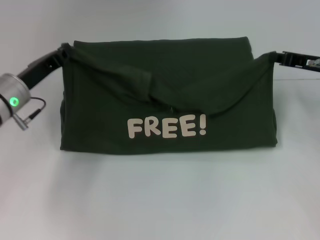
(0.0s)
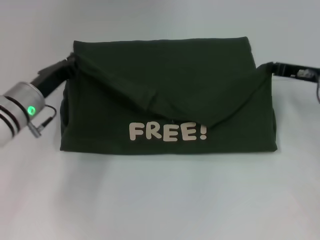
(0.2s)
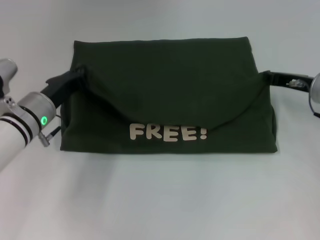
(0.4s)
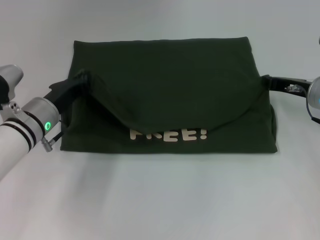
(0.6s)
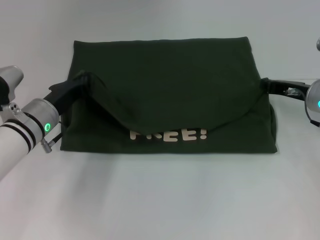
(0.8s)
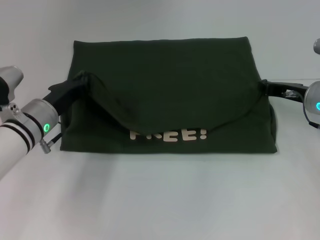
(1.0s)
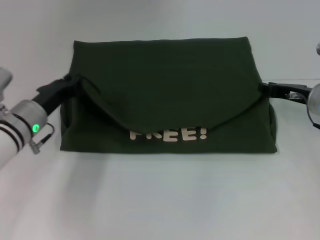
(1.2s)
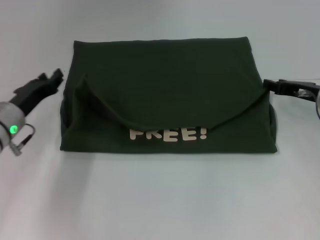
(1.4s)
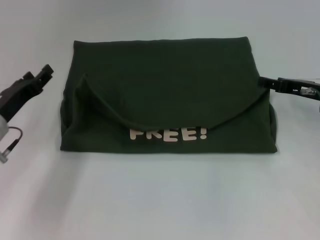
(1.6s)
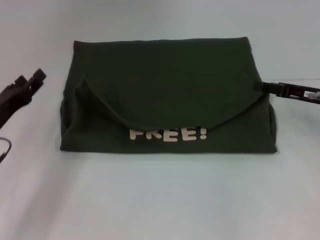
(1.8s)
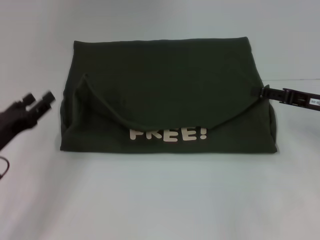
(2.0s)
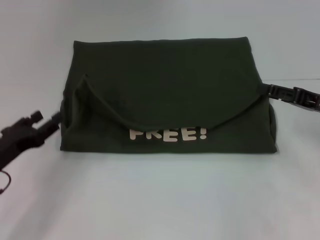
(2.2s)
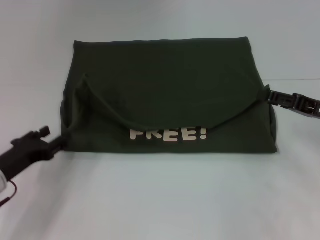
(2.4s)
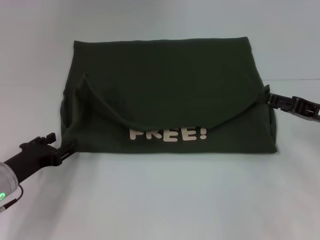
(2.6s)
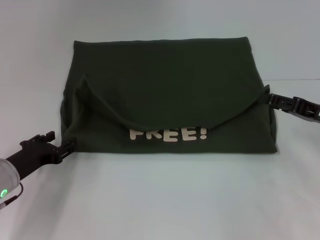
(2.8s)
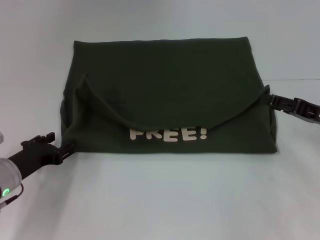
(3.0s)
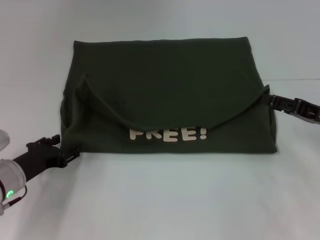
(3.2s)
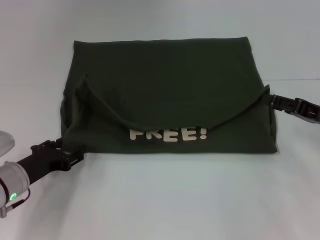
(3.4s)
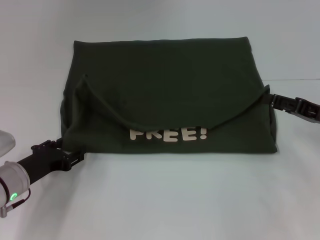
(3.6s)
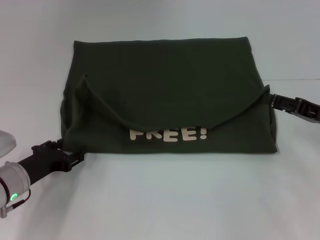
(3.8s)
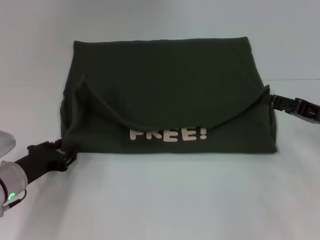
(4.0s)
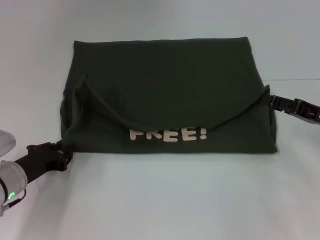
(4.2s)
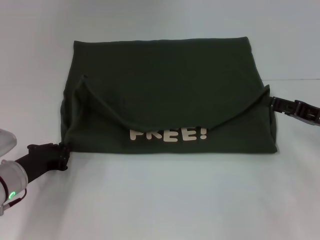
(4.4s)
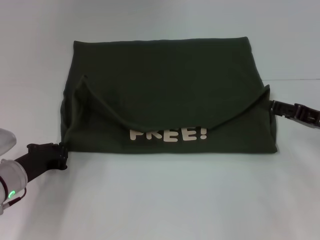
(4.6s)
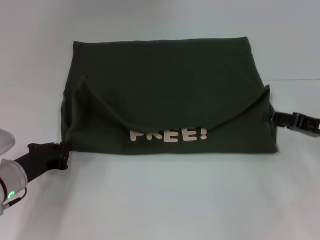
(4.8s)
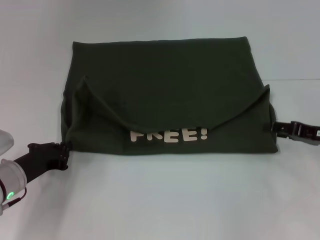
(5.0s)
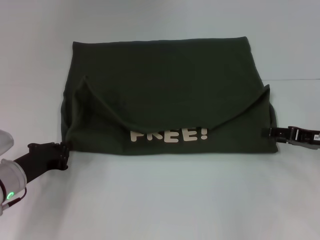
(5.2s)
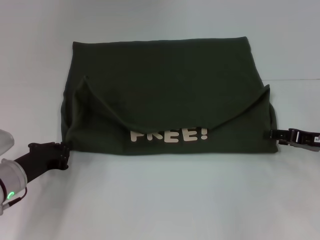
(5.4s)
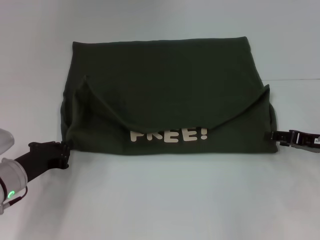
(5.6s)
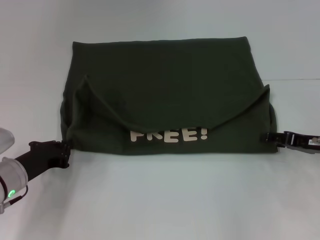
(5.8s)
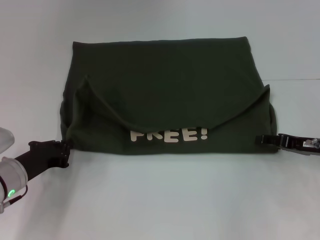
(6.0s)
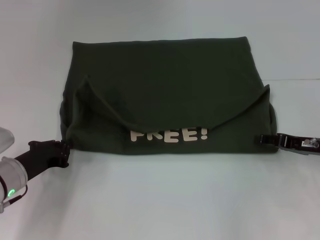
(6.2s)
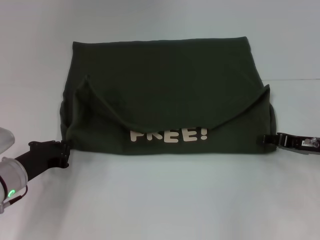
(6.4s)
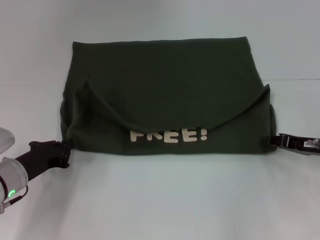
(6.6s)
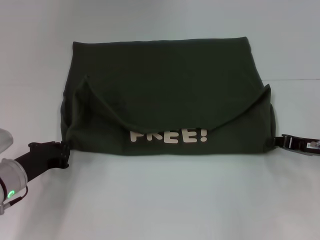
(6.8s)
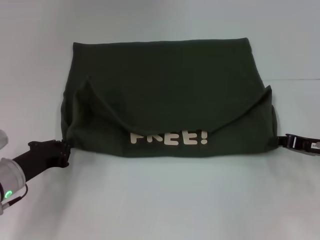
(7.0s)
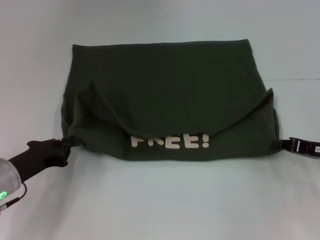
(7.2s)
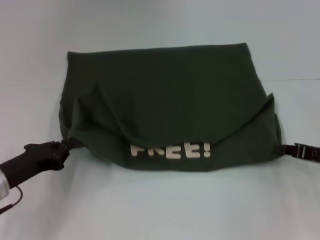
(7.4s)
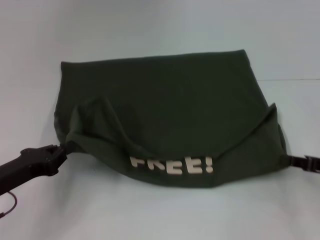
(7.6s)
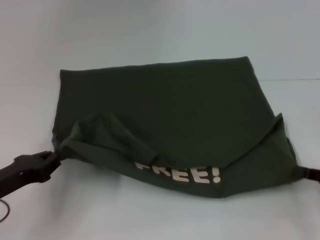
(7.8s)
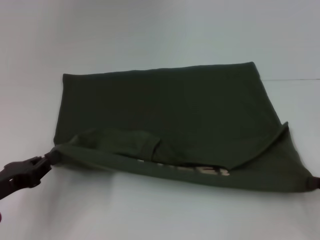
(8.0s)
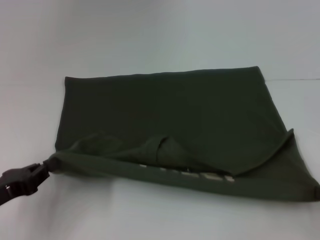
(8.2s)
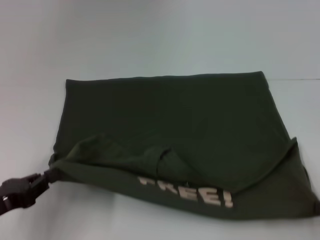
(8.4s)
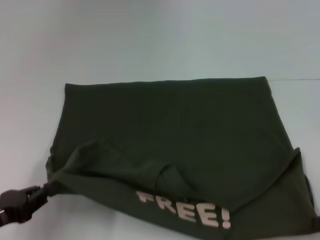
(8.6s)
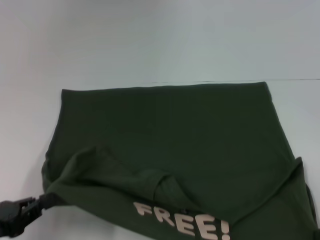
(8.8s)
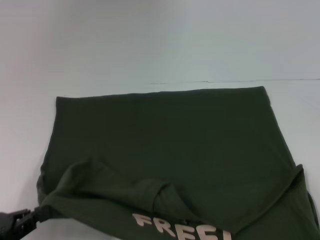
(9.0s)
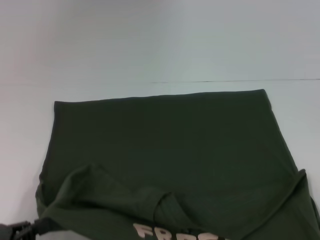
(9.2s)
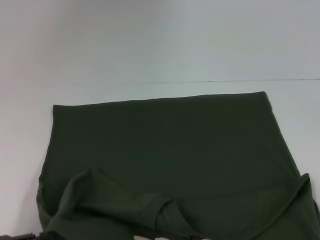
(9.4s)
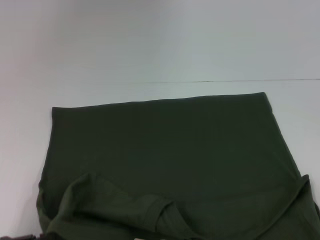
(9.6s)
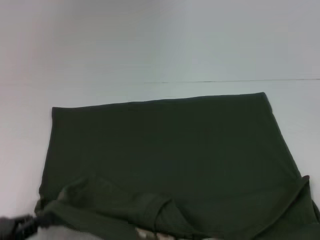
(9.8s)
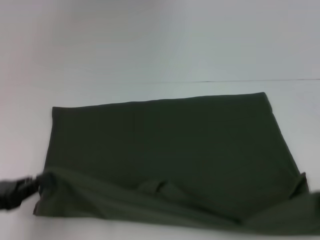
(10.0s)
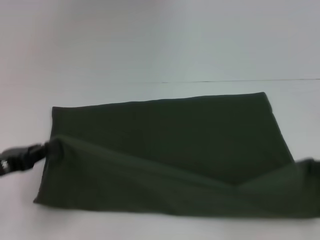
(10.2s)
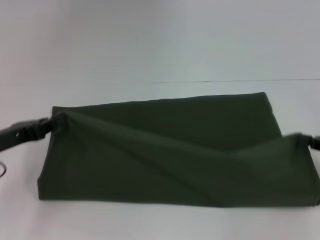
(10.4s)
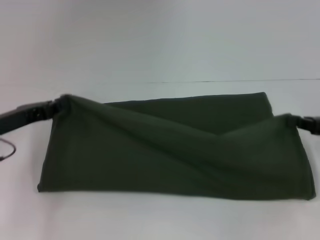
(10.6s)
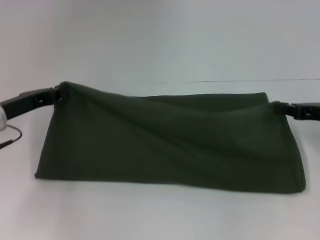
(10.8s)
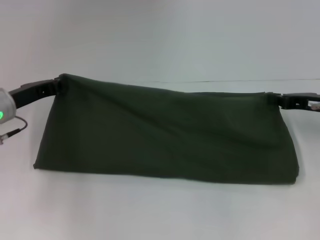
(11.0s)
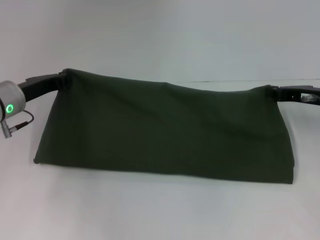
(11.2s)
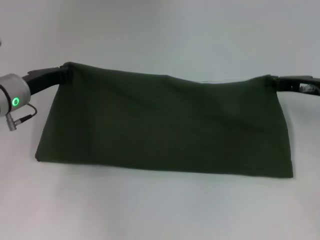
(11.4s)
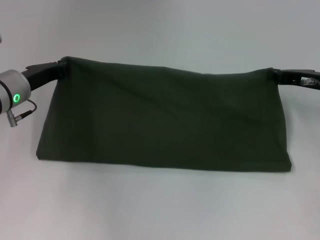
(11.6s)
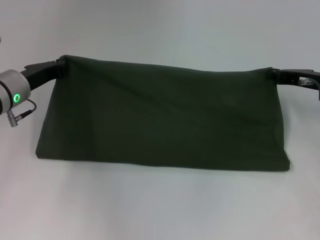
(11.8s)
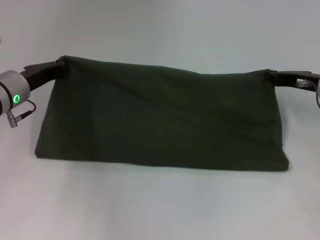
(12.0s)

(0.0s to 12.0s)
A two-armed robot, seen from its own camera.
Step, 1.8s - 9.0s: Pull the clothes with your left hand.
Step, 1.8s - 9.0s: Pull the clothes with your right hand.
0.0s - 1.6s: The right gripper opens its fingers; the left gripper ends up about 5 cm from where it was, and opens.
1.6s - 3.0s: The right gripper shifts some 5 cm backward. Meanwhile the left gripper shifts by some 5 cm.
3.0s - 4.4s: The left gripper closes its fingers.
6.0s - 7.6s: The left gripper changes place by some 5 cm, while the right gripper moves backward, roughly 5 cm, and closes up.
7.6s - 9.0s: Both grippers travel together backward, roughly 10 cm.
9.0s - 10.4s: The two grippers go about 10 cm forward.
10.4s - 12.0s: The right gripper is displaced forward and to the left by some 15 cm, while the left gripper travels forward and to the right by approximately 15 cm.

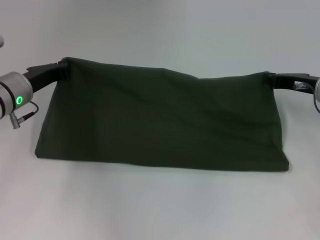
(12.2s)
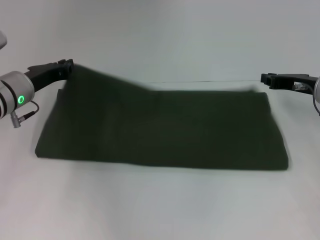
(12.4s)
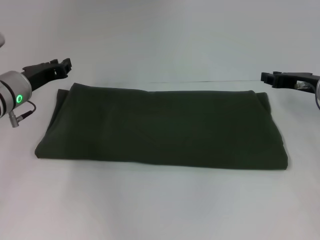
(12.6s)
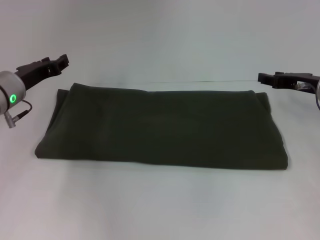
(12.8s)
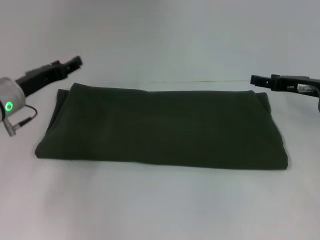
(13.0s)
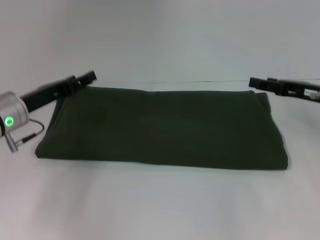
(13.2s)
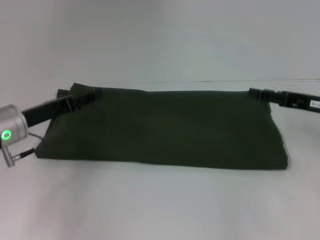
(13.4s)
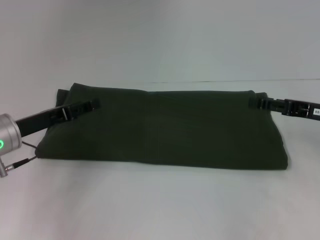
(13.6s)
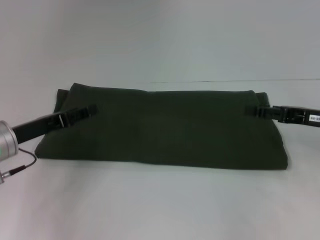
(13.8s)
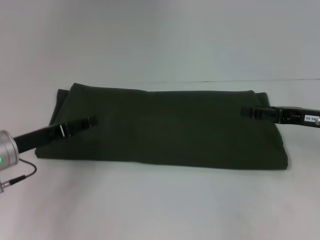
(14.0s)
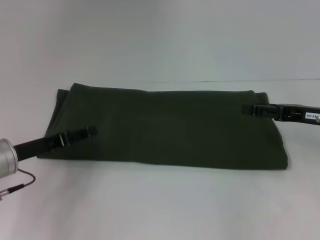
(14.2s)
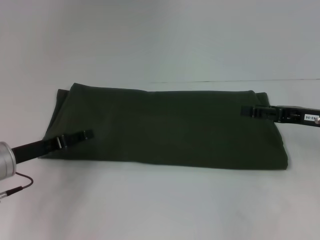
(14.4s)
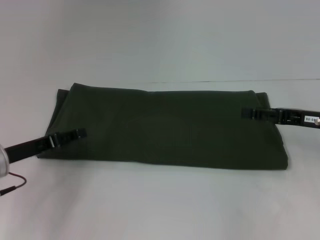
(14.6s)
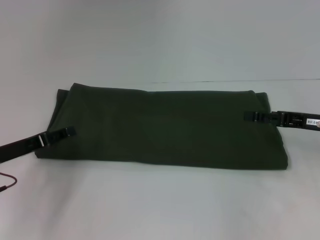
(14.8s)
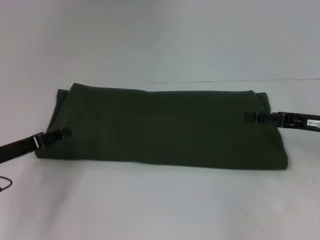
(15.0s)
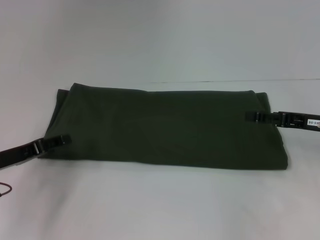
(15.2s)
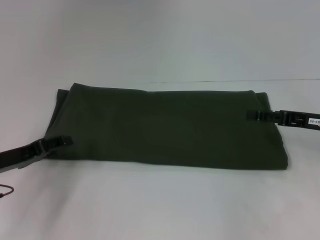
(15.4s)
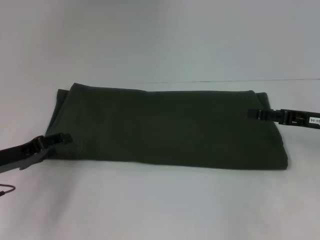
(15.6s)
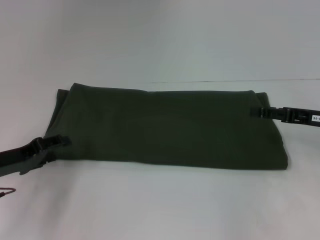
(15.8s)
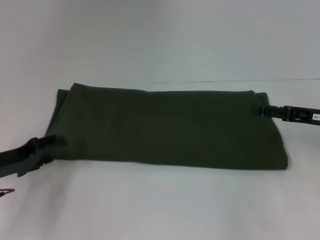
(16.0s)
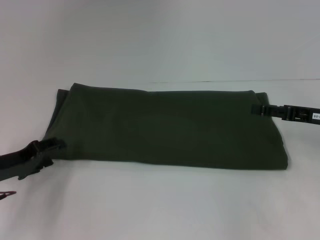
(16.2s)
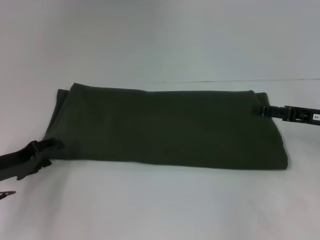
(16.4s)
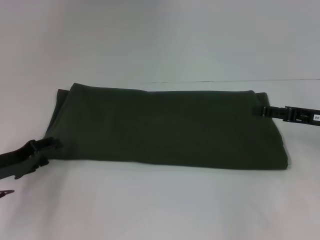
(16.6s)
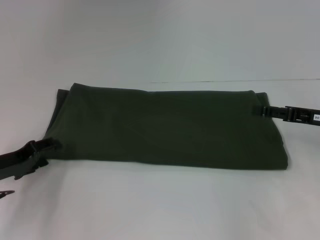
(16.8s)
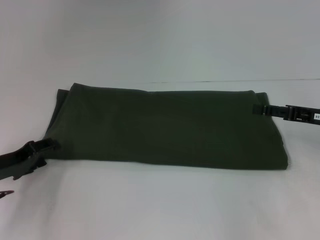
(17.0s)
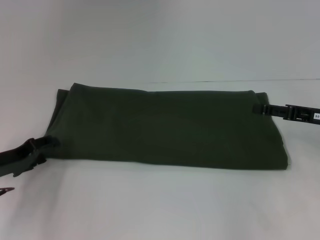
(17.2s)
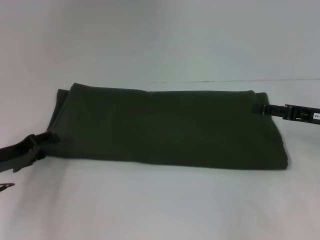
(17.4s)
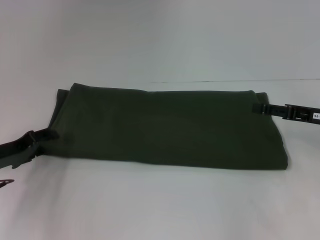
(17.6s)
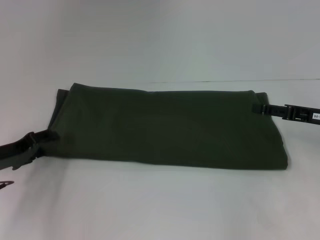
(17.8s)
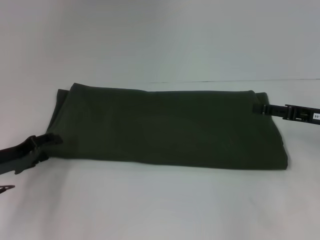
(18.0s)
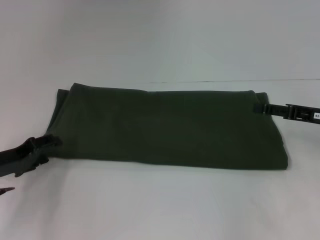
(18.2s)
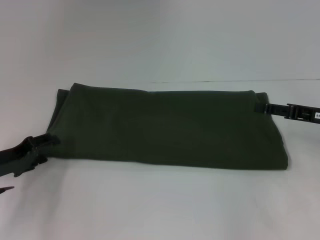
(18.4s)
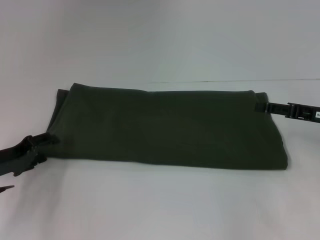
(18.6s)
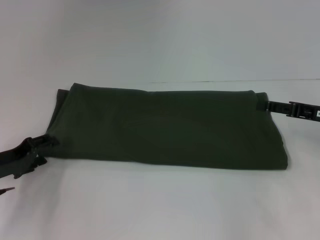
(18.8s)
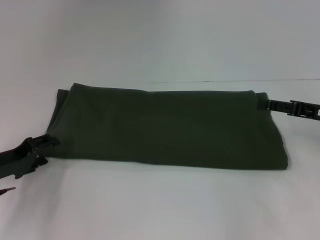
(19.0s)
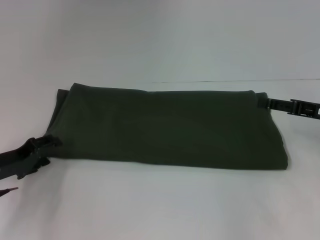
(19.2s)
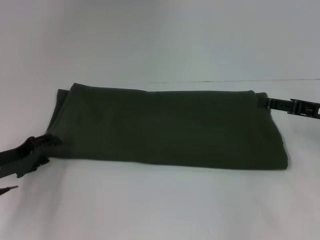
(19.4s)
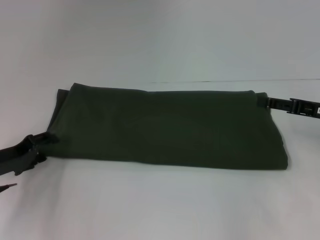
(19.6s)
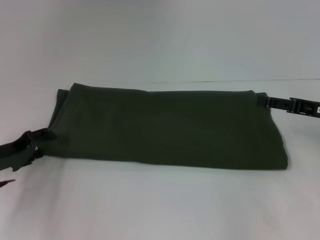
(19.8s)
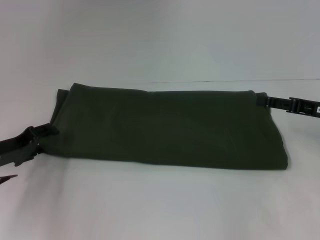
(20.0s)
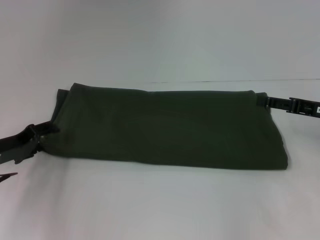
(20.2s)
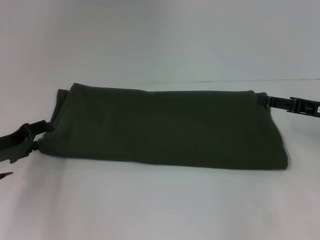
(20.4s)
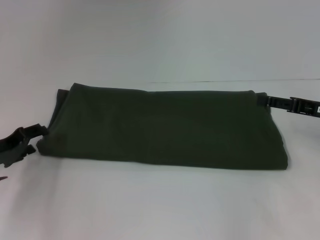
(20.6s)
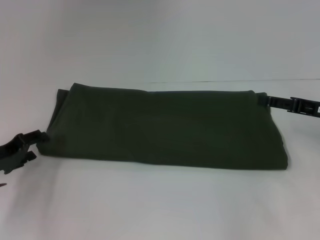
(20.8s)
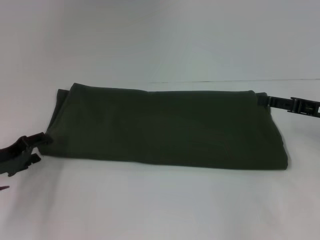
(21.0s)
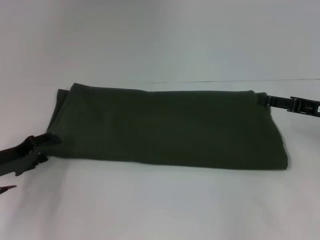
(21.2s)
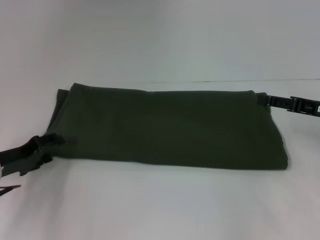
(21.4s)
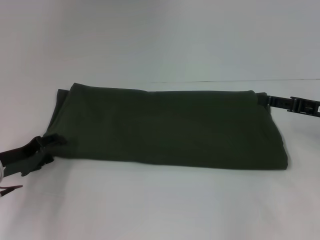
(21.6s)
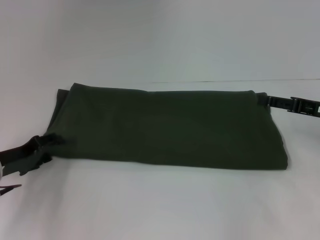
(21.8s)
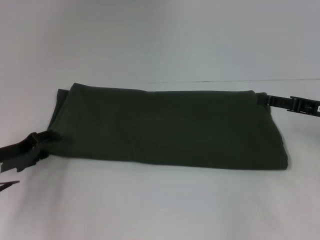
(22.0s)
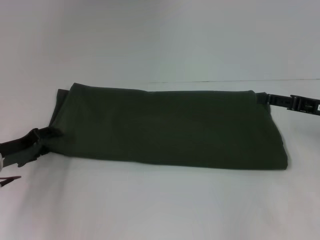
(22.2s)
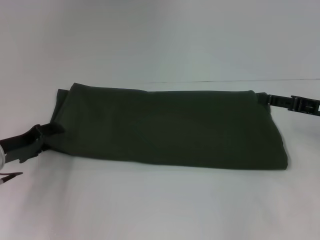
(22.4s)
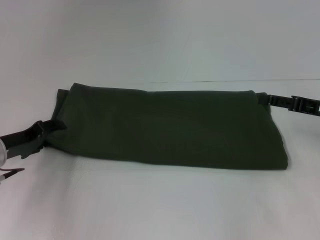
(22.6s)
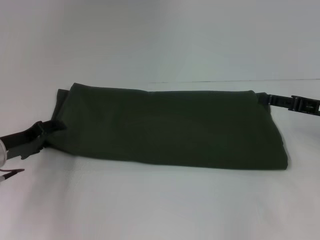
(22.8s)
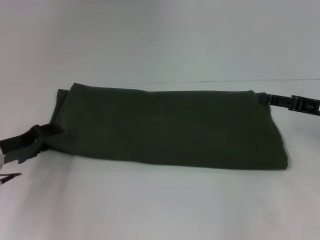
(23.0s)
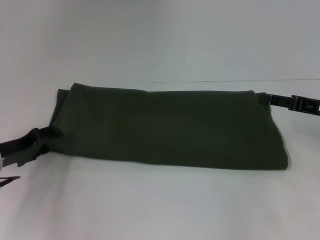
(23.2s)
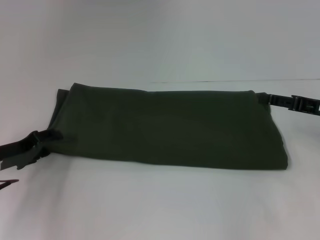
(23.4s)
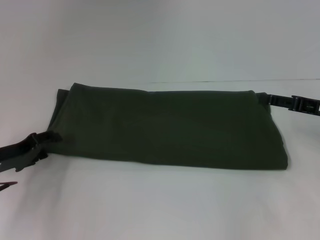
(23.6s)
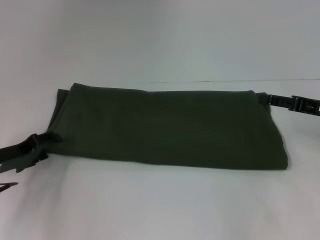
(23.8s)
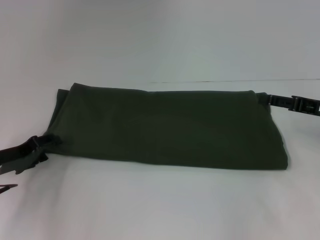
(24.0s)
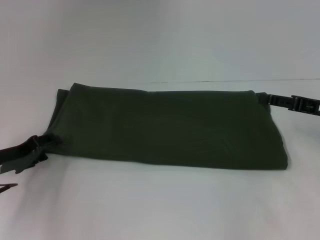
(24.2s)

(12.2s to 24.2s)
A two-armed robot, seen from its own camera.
12.2s - 13.8s: The two grippers go roughly 10 cm backward. The left gripper opens, while the right gripper opens its fingers.
13.8s - 15.2s: The grippers move only a little.
16.6s - 19.8s: The grippers make only small movements.
19.8s - 21.2s: Both grippers stay put.
21.2s - 24.2s: The grippers move only a little.
